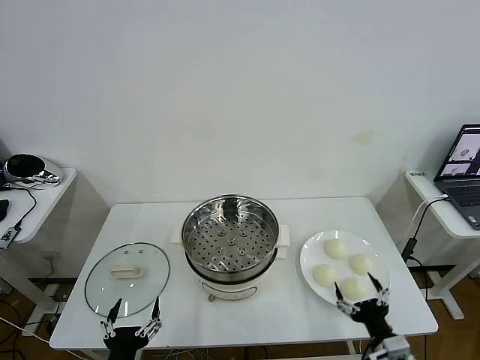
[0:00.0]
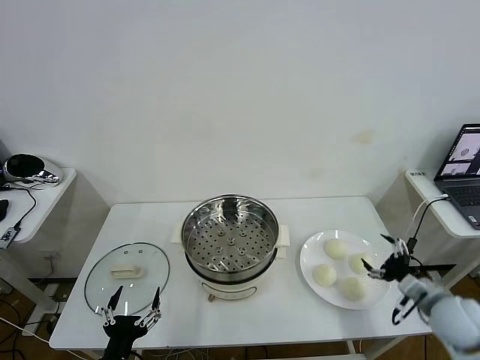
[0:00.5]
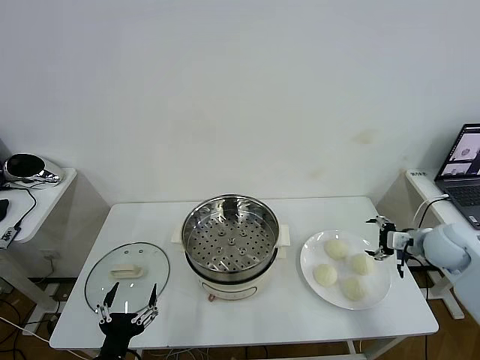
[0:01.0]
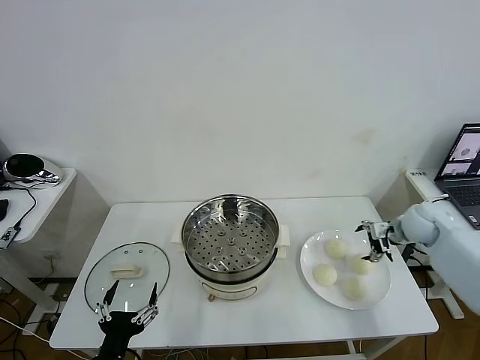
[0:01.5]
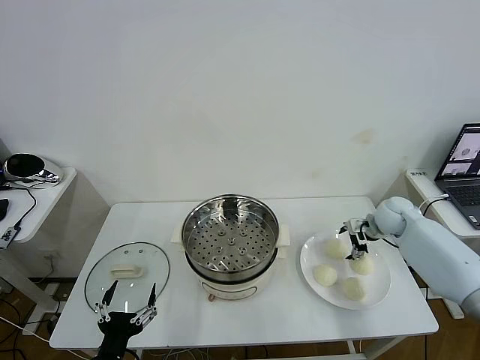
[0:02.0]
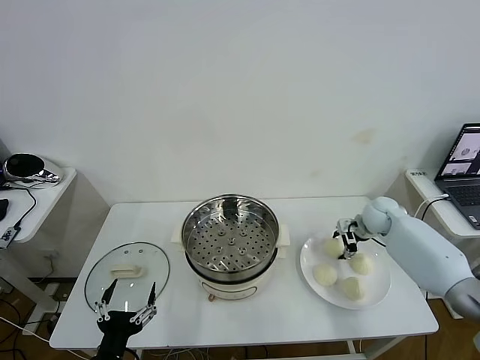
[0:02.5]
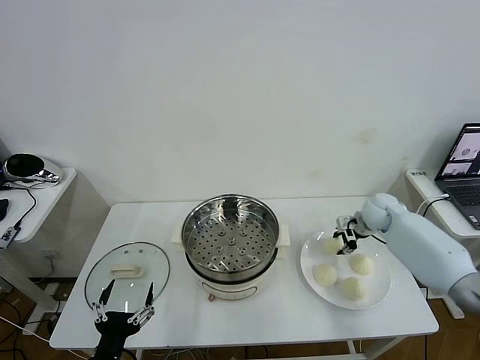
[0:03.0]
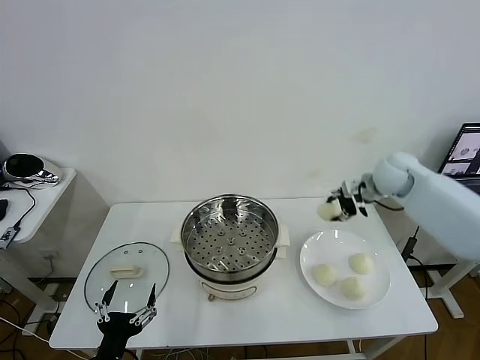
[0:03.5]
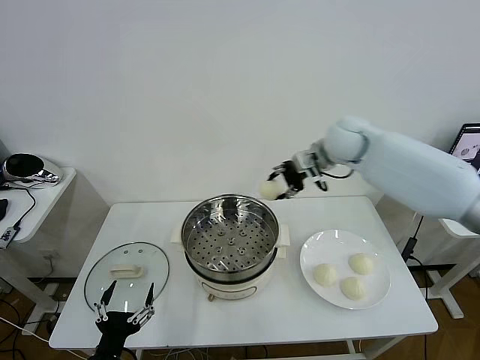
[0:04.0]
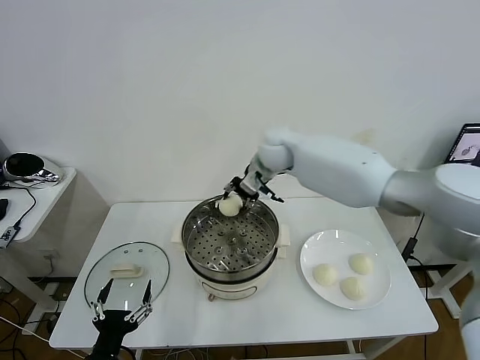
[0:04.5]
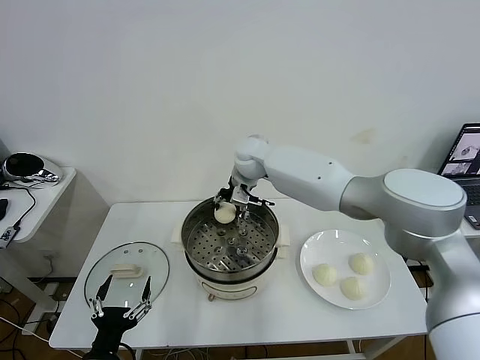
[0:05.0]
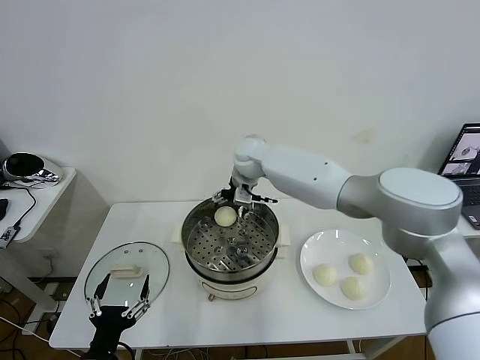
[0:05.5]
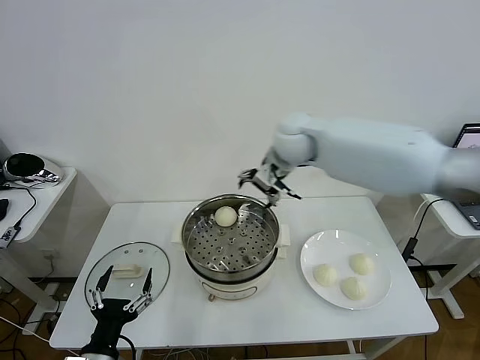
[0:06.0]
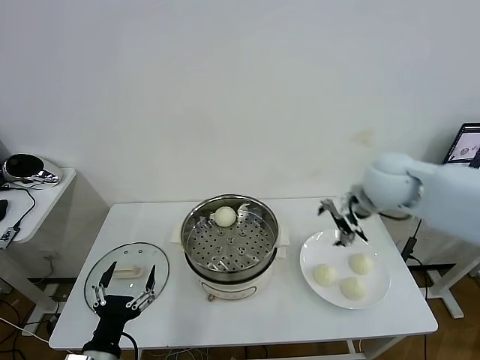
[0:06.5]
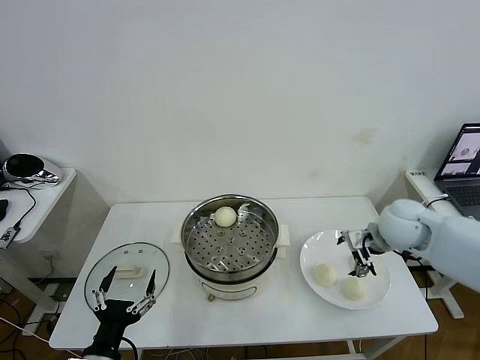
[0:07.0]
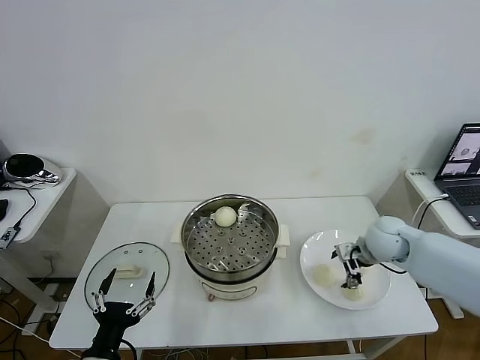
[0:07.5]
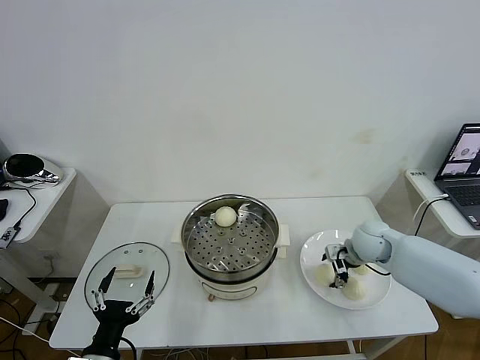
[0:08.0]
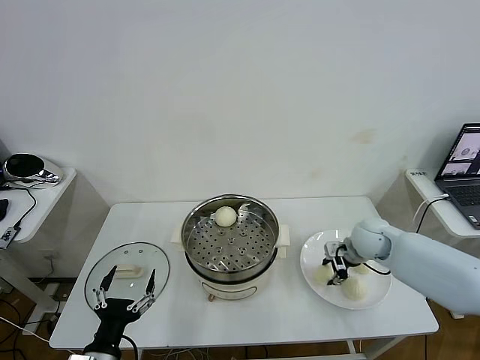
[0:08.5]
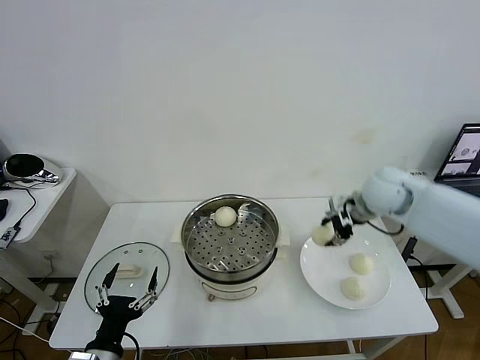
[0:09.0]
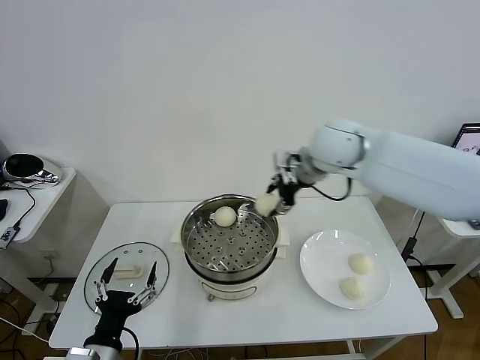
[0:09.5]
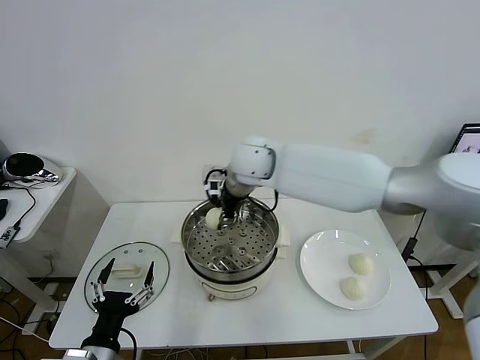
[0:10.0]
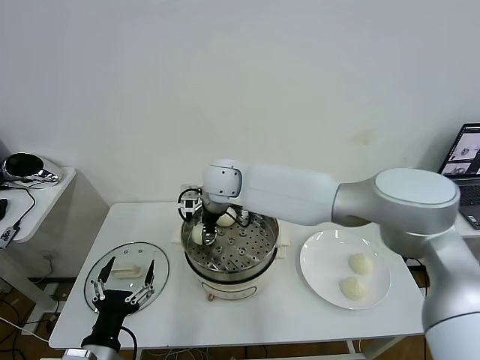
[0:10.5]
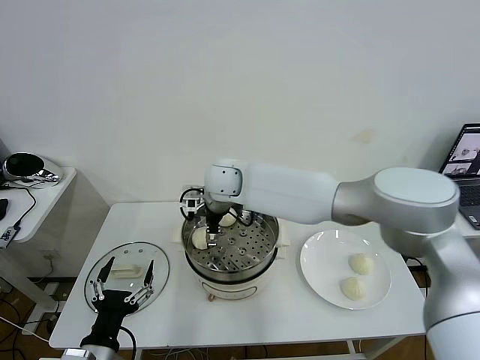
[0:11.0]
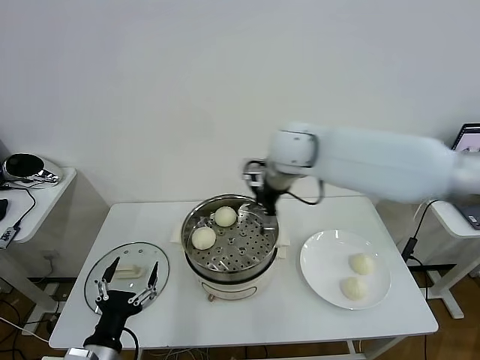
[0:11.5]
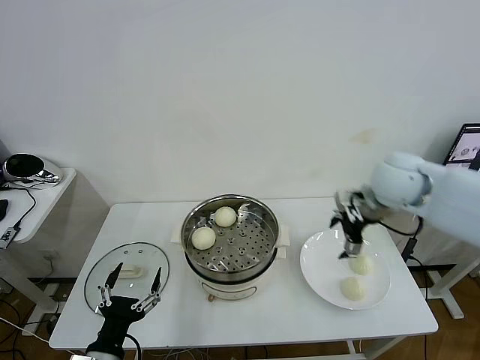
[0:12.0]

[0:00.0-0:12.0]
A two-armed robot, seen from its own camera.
Task of the whole recording: take steamed baozi put them in steamer then cover it.
Step, 0:00.0 to 0:02.5: Grasp the baozi in the plate with right gripper.
Step, 0:03.0 to 0:05.5: Place the baozi on the steamer with right gripper.
Step, 0:06.0 to 0:08.5: Grasp the baozi in the plate with right gripper.
Step, 0:09.0 to 0:11.0: Place the baozi on the steamer with right gripper.
0:02.0 to 0:04.0: The right gripper moves to the left and upward, approximately 30 cm, and closes up.
0:04.0 to 0:06.0: The right gripper goes to the left and returns, about 15 cm each way, and opens.
0:06.0 to 0:08.0: The right gripper travels downward and to the right by approximately 30 cm.
0:08.0 to 0:10.0: The right gripper travels to the left and upward by about 35 cm, and closes up.
0:10.0 to 0:12.0: The right gripper goes some 30 cm to the right, and opens.

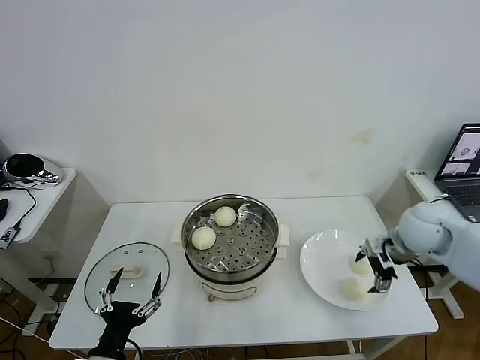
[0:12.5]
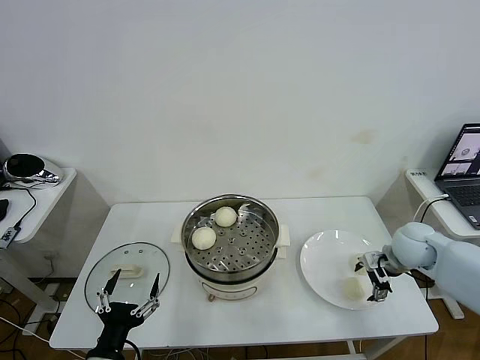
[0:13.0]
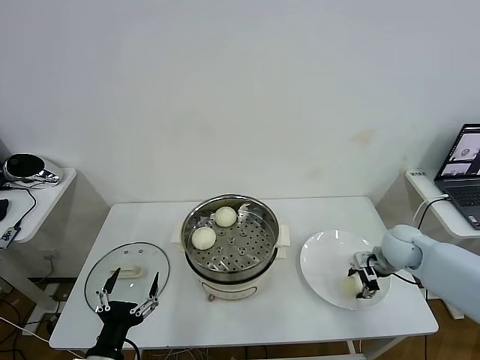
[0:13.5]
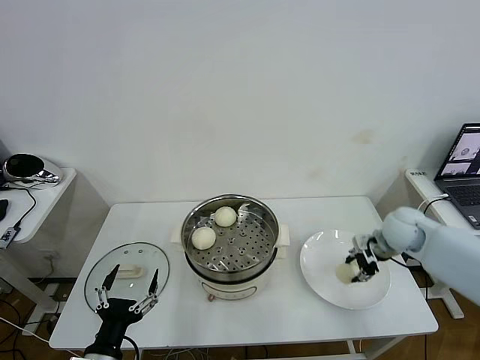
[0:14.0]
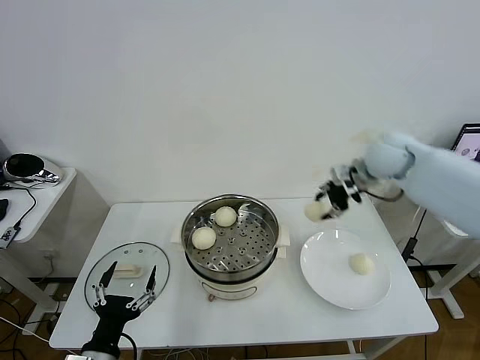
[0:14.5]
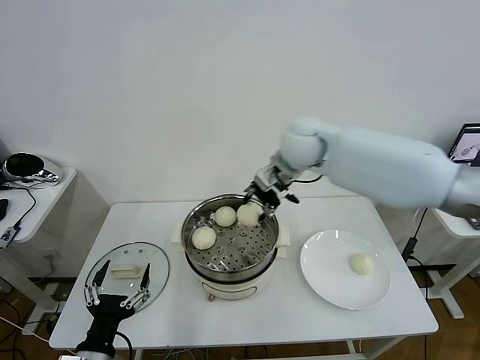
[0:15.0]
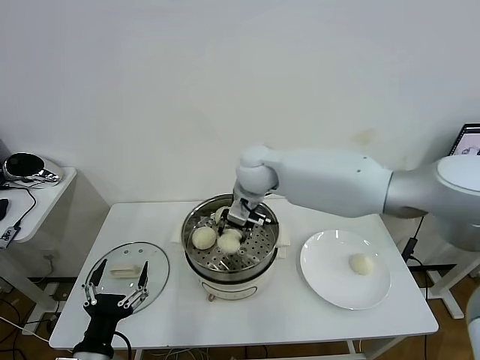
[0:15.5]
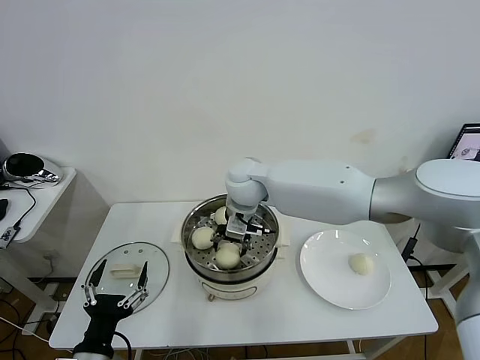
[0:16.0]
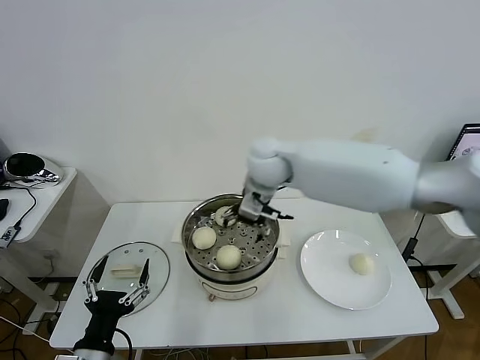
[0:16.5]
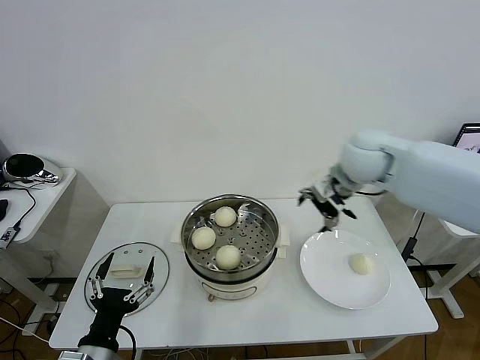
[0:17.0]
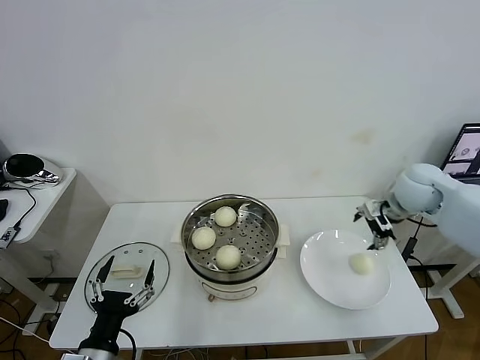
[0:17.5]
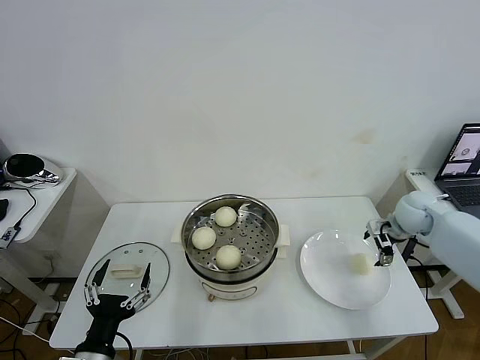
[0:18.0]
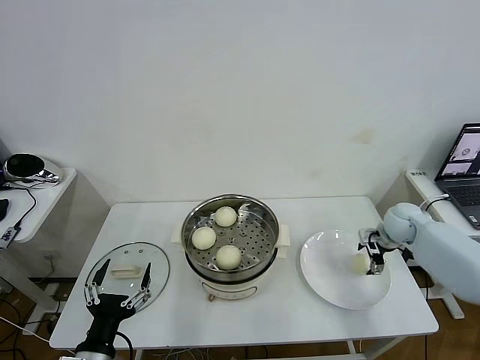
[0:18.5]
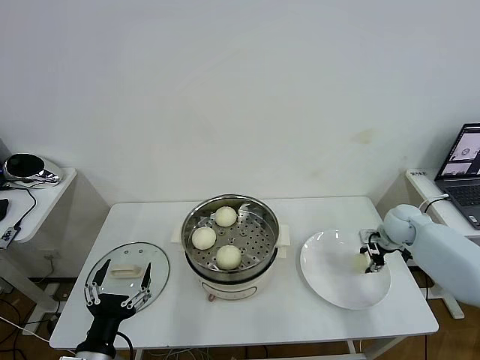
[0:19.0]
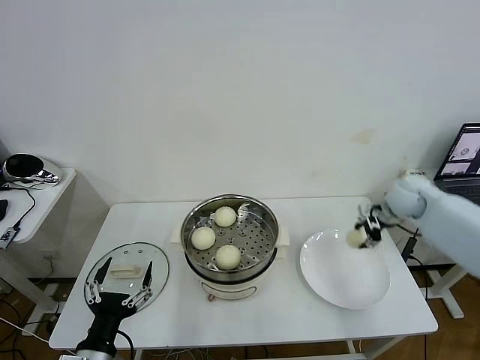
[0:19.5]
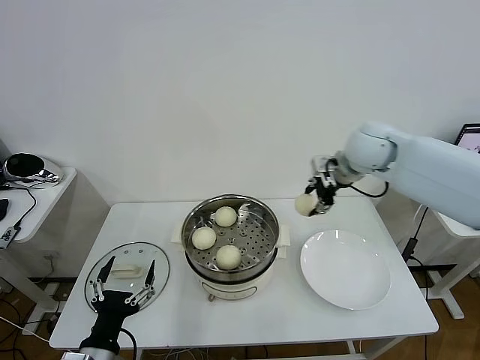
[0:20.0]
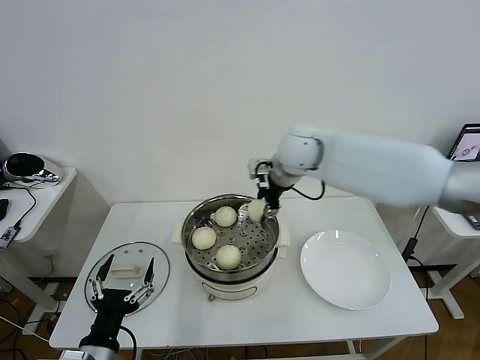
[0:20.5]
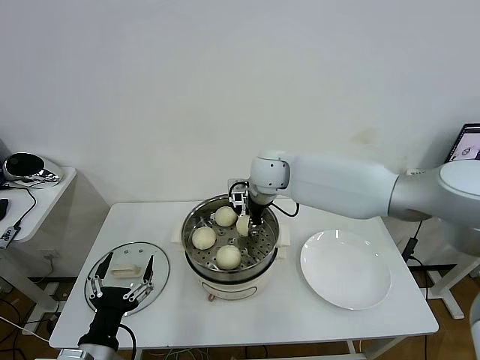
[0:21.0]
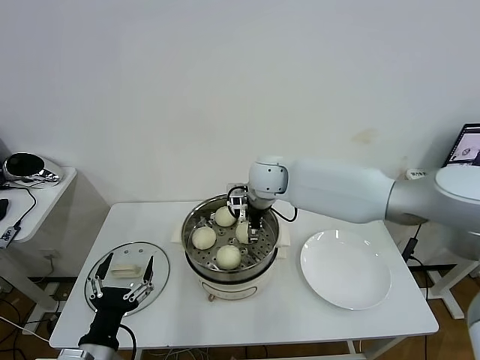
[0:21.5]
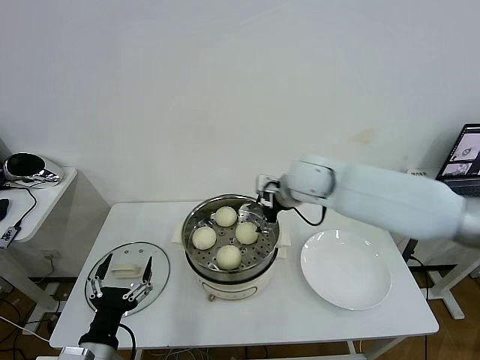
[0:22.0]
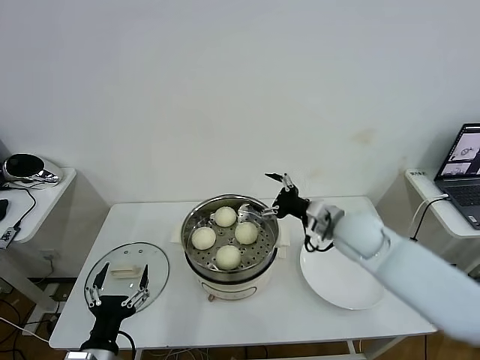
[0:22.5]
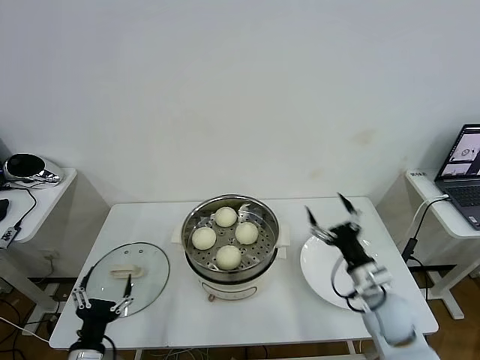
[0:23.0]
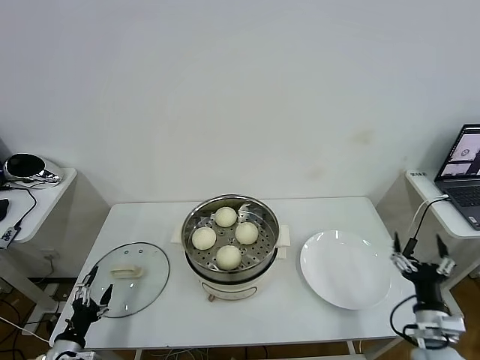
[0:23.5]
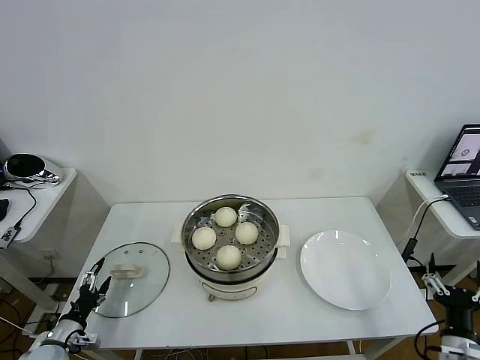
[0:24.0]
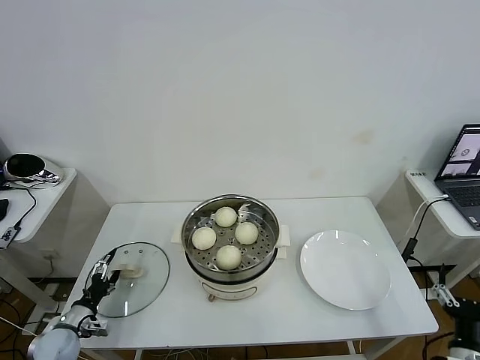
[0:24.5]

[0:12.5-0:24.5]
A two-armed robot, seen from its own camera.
Task of the whole recording: take steamed baozi put them in steamer then cover it.
Step, 0:14.0 to 0:16.0: Place the baozi on the steamer with right gripper.
Step, 0:16.5 to 0:19.0: Grasp the baozi in the plate with right gripper.
Step, 0:19.5 to 0:21.5: Place the baozi on the steamer with right gripper.
0:12.5 to 0:14.5: The right gripper is displaced upward, forward and to the left by approximately 20 cm, and closes.
0:14.5 to 0:16.5: The right gripper moves to the left, approximately 20 cm, and opens its fingers.
0:16.5 to 0:18.5: The right gripper is displaced to the right and downward by approximately 40 cm.
0:18.5 to 0:20.5: The right gripper moves to the left and upward, about 35 cm, and closes its fingers.
0:20.5 to 0:22.5: The right gripper shifts about 20 cm downward, to the right and backward, and opens.
0:22.5 to 0:24.5: The right gripper moves backward, to the right and downward, about 40 cm; the left gripper shifts some 25 cm to the left, downward and forward.

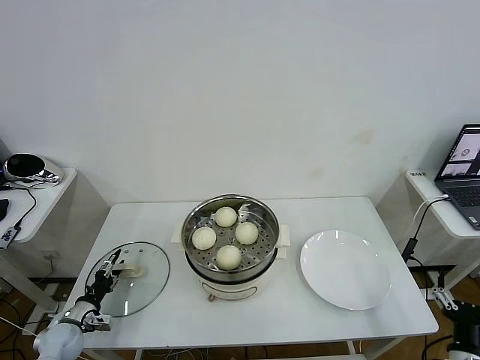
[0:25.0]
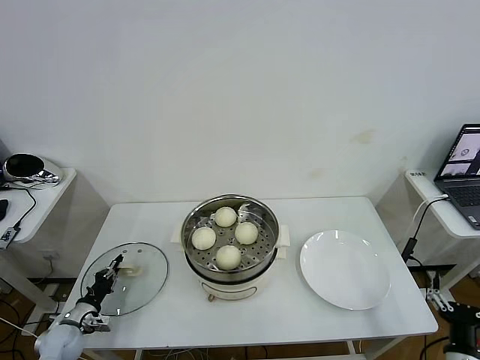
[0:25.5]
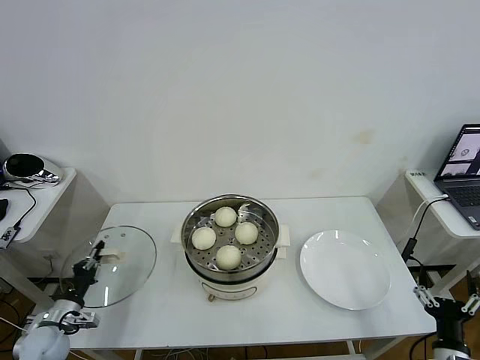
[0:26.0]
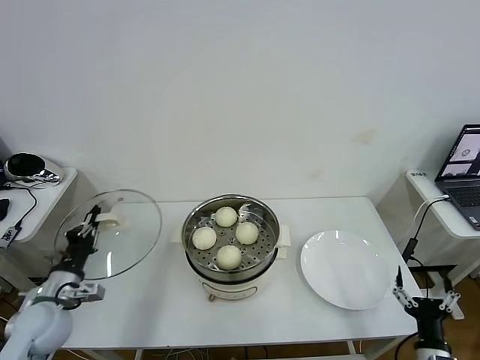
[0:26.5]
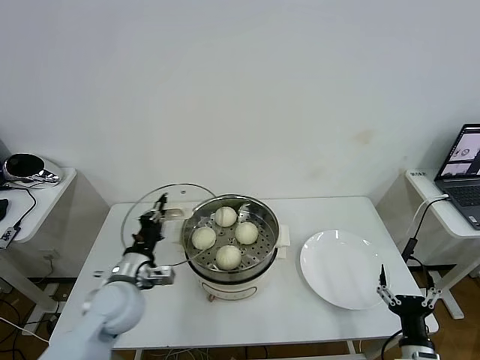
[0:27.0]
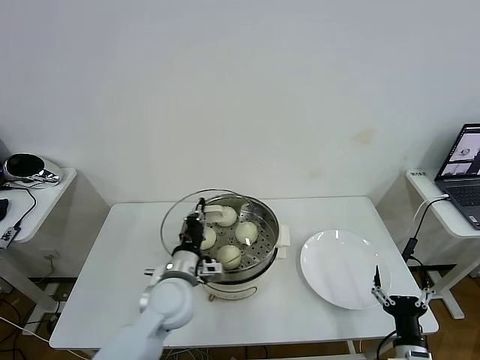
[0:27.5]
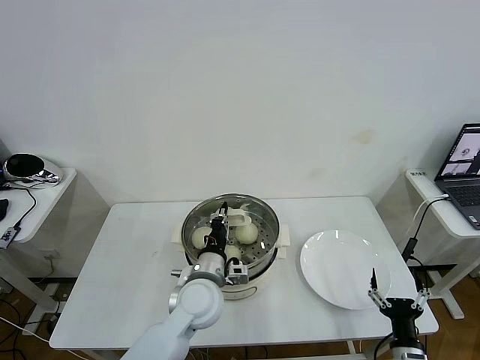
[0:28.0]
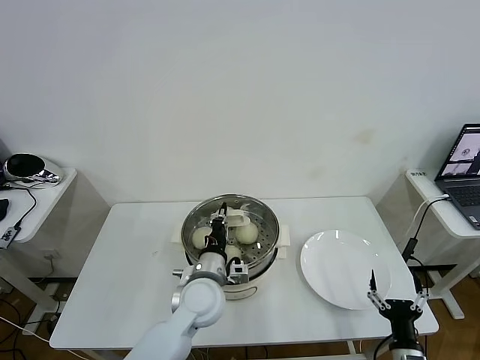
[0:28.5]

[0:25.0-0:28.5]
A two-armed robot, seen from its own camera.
Task of the whole recording: take steamed baozi put them in steamer then cover it.
0:25.0 to 0:27.0: The left gripper is displaced upward and to the right by roughly 25 cm, and closes up; the right gripper moves to the left, roughly 5 cm.
0:27.0 to 0:28.5: The left gripper shifts some 20 cm to the right.
